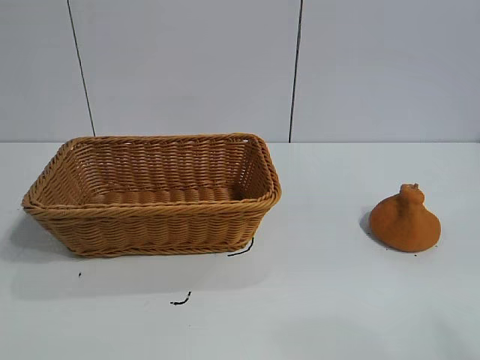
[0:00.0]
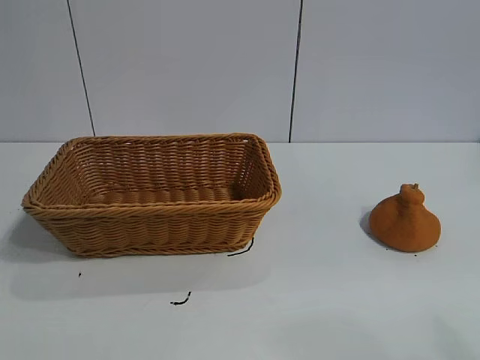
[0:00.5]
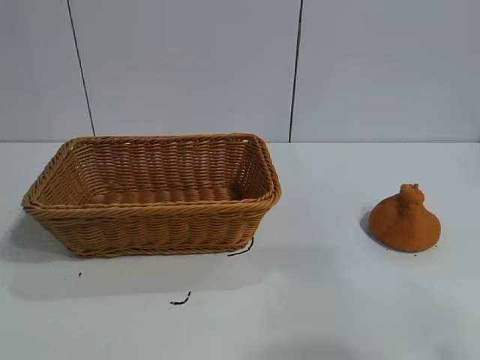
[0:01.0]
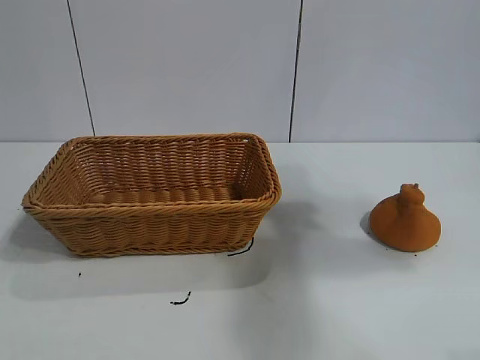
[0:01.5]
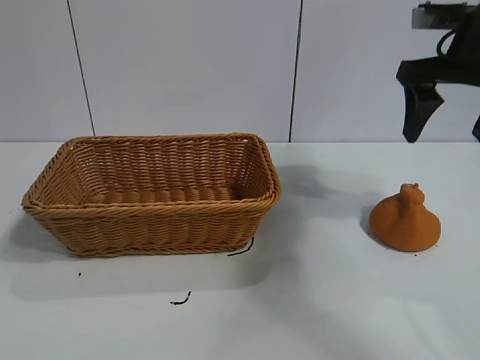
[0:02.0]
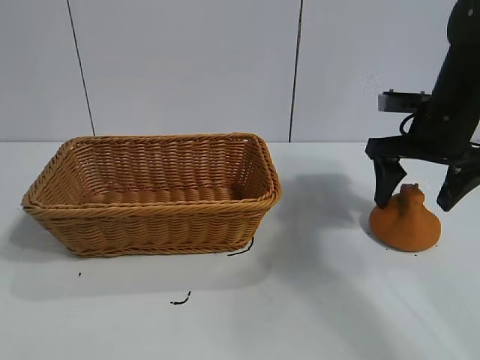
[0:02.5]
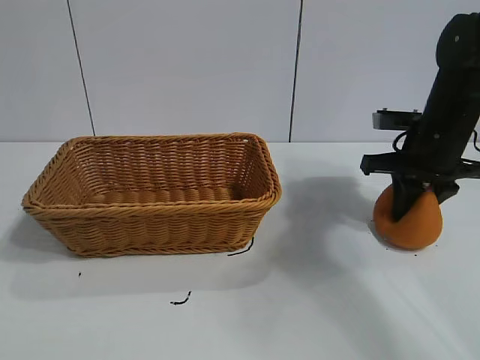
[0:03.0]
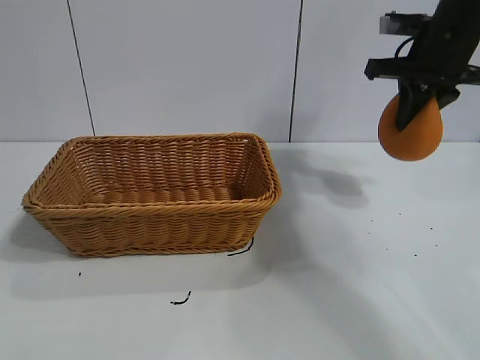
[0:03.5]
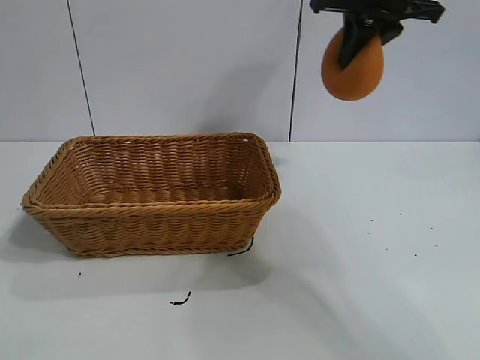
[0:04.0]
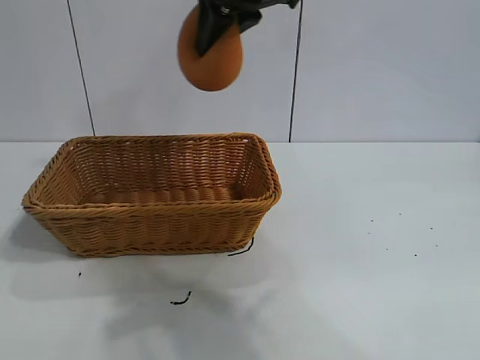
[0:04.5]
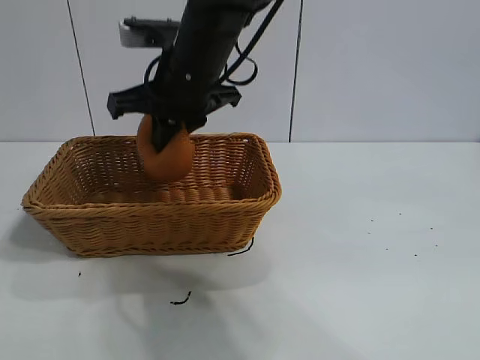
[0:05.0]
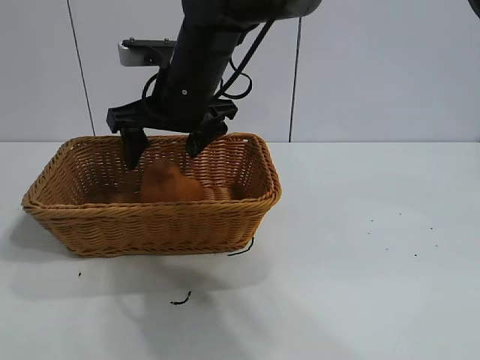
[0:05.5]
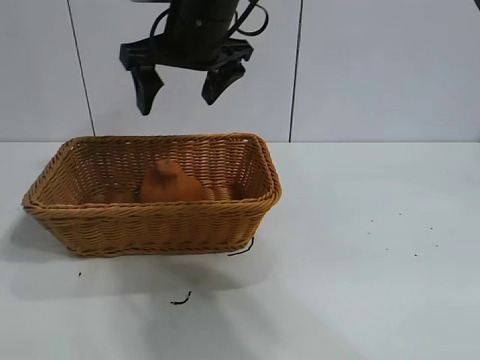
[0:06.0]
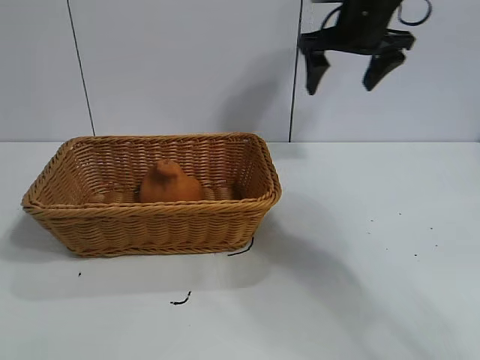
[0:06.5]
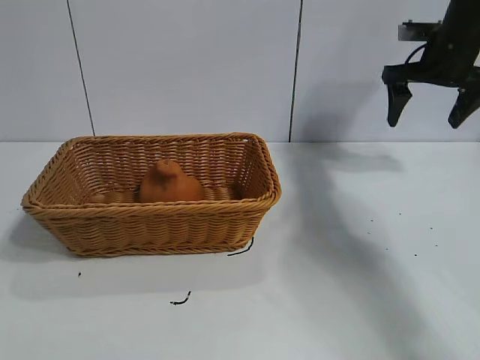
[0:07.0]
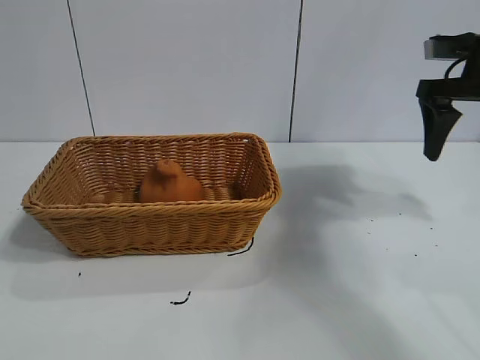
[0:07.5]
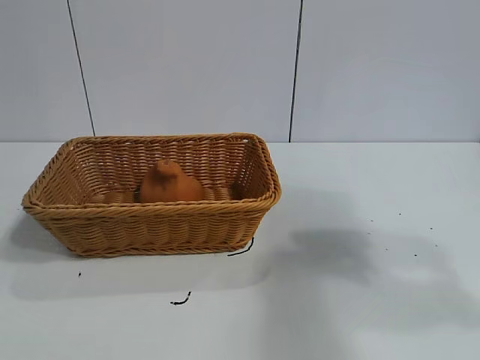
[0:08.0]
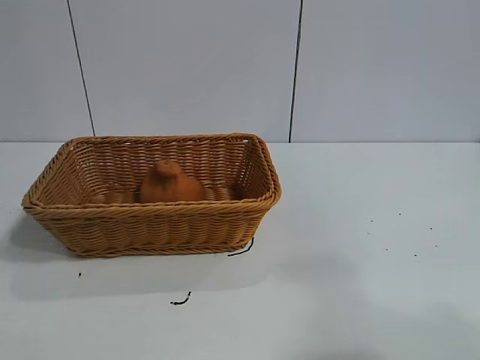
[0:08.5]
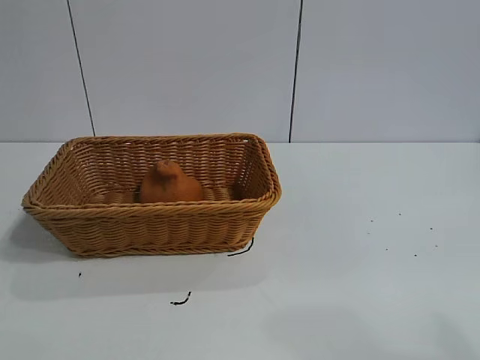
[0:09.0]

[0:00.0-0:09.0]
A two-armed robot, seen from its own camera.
Task of the whole recording: pick up the orange and put it into the basket.
Step, 0:01.0 to 0:03.0: Grasp the orange with right gripper.
Step, 0:03.5 to 0:05.0: Place the orange in the basket with right gripper.

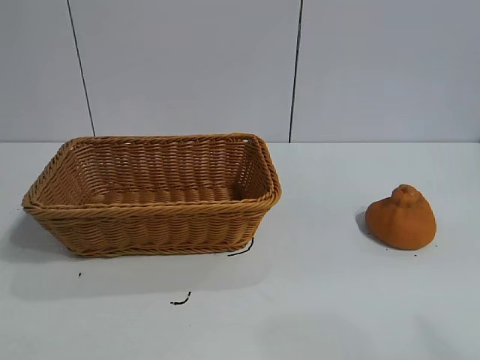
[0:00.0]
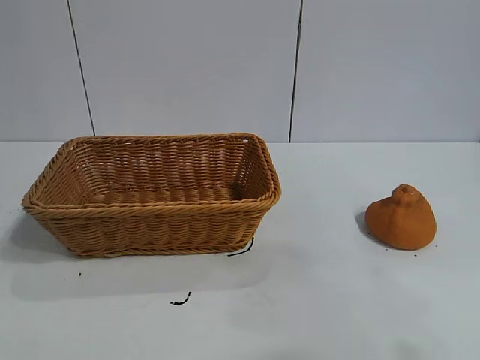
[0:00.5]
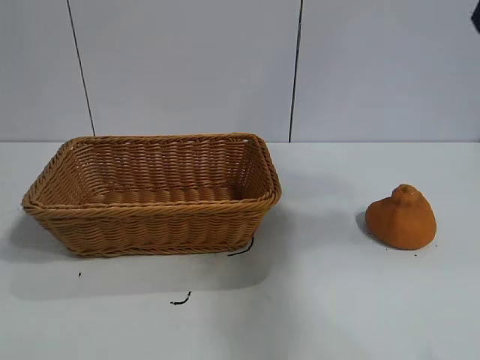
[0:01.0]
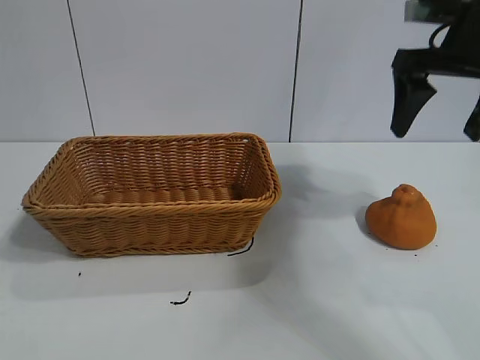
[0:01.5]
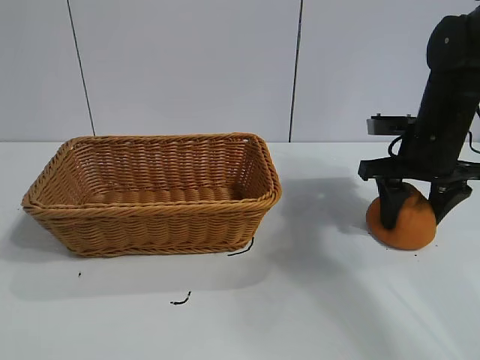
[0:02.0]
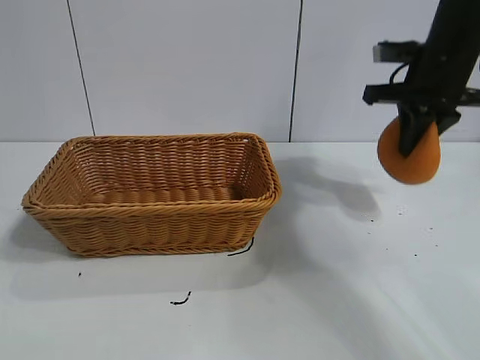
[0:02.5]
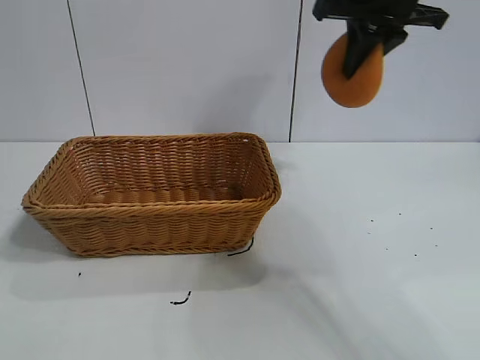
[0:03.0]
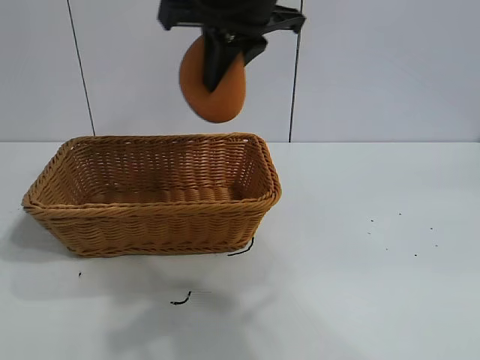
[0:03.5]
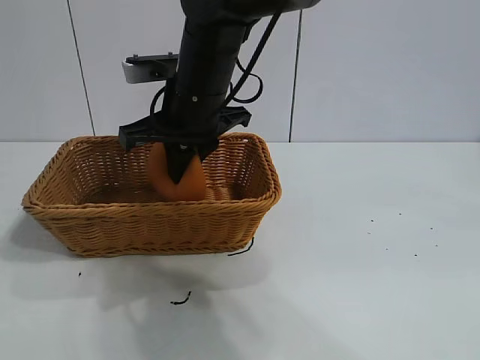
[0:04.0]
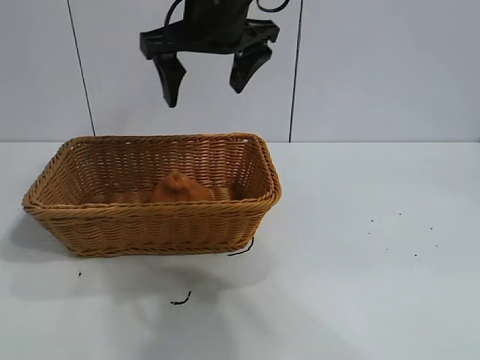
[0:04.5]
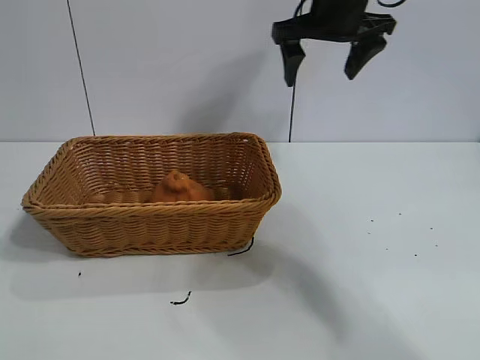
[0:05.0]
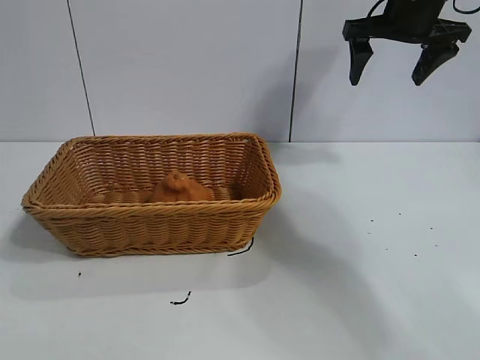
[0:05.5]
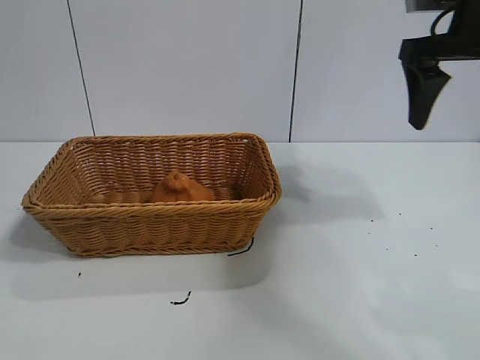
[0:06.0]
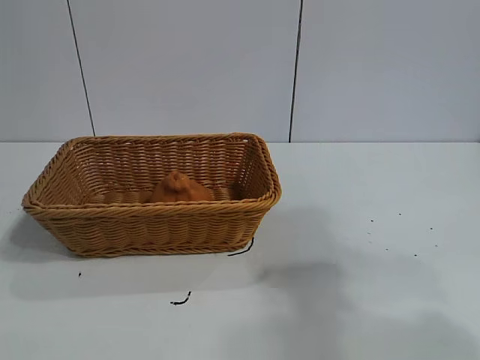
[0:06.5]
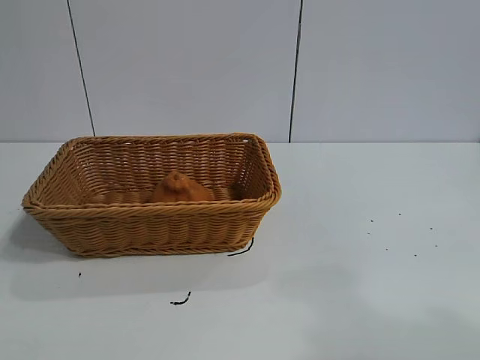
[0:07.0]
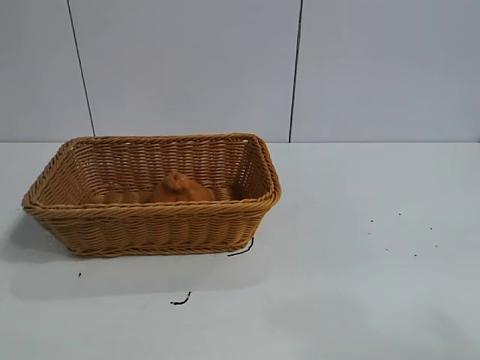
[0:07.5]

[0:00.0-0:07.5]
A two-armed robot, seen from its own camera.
Task of the whole recording: pick up the orange and put it into the basket.
Step, 0:00.0 to 0:02.0: Grasp the orange with right gripper.
Step, 0:02.5 to 0:04.0: Place the orange in the basket with right gripper.
